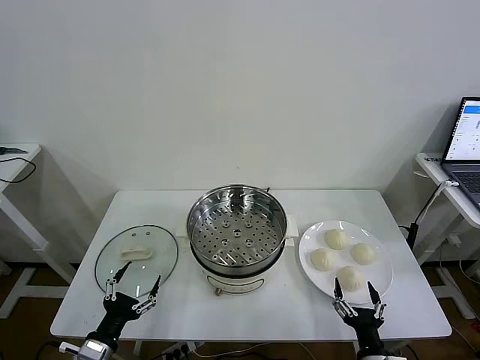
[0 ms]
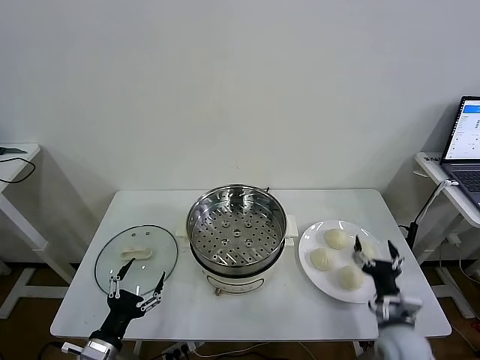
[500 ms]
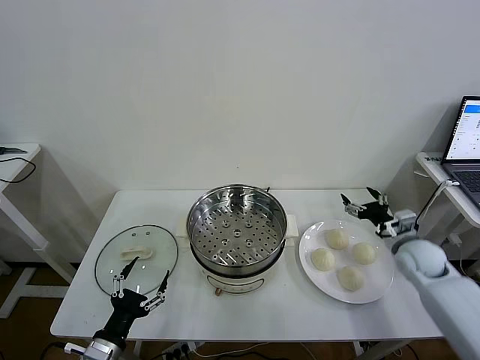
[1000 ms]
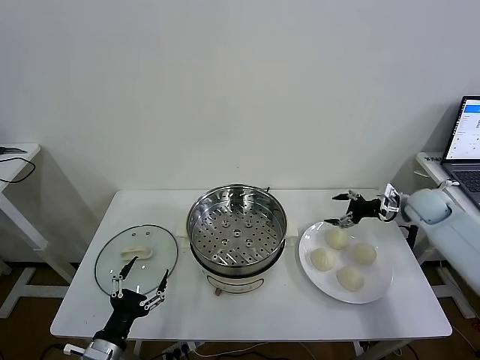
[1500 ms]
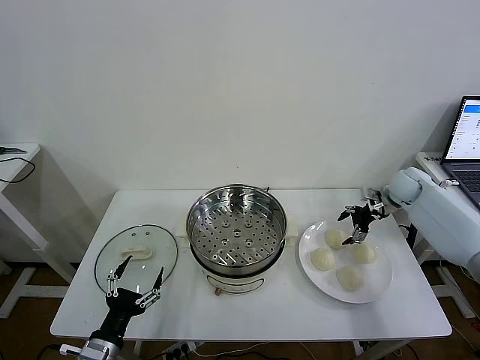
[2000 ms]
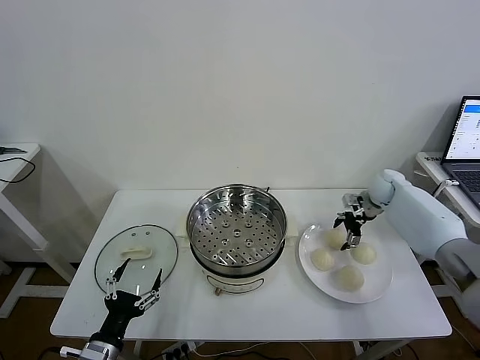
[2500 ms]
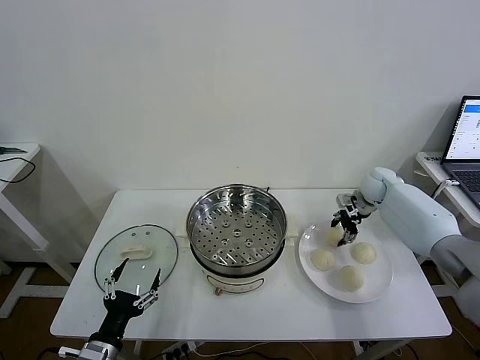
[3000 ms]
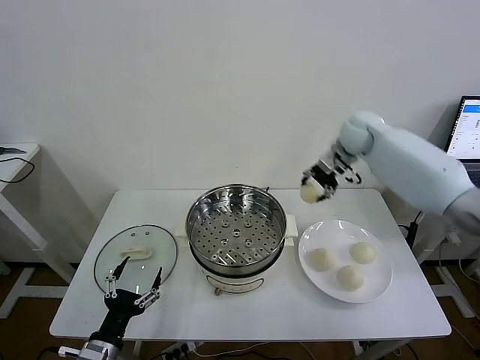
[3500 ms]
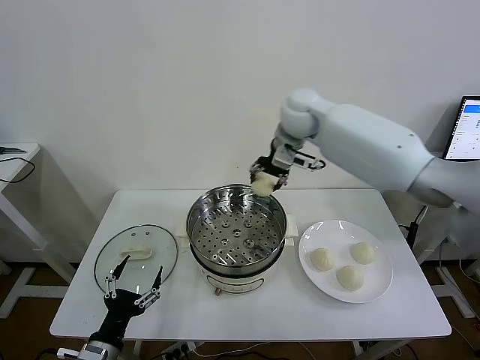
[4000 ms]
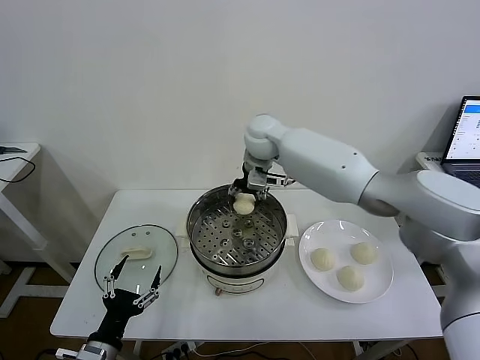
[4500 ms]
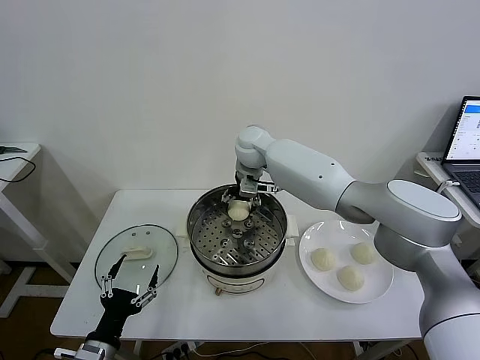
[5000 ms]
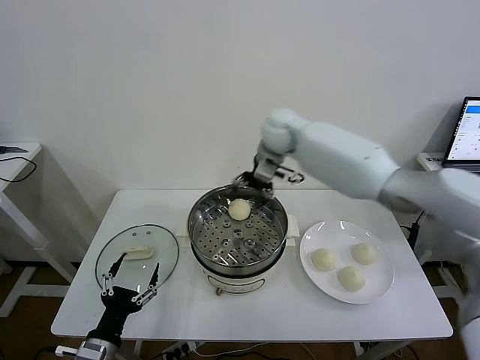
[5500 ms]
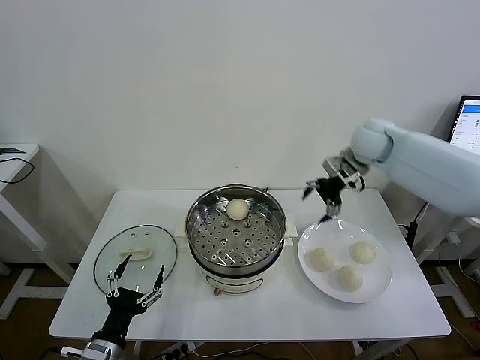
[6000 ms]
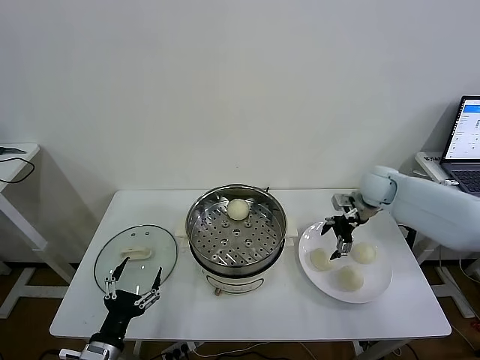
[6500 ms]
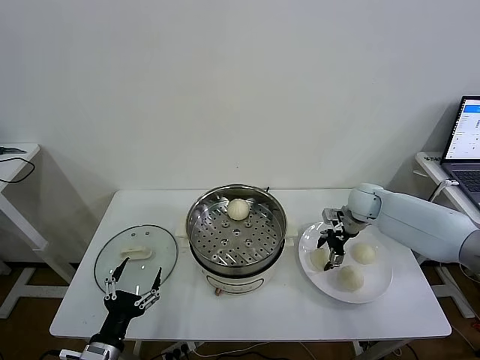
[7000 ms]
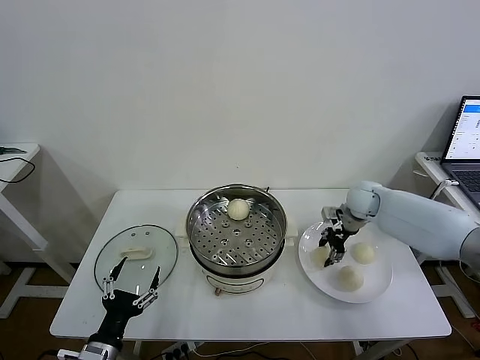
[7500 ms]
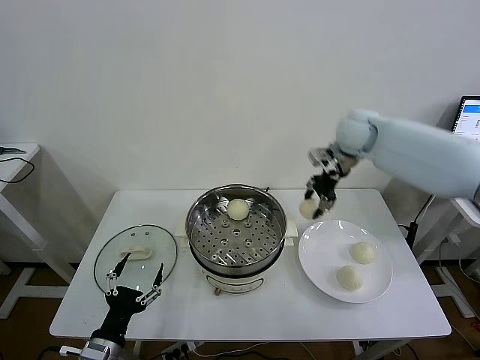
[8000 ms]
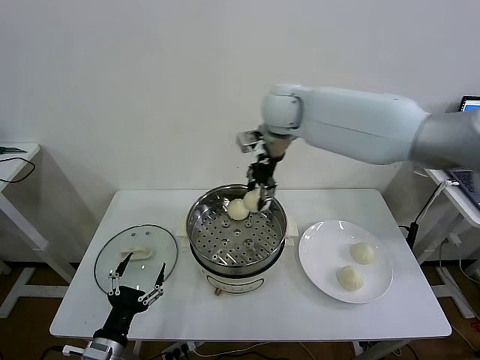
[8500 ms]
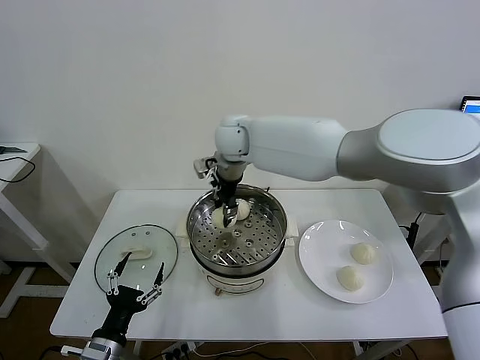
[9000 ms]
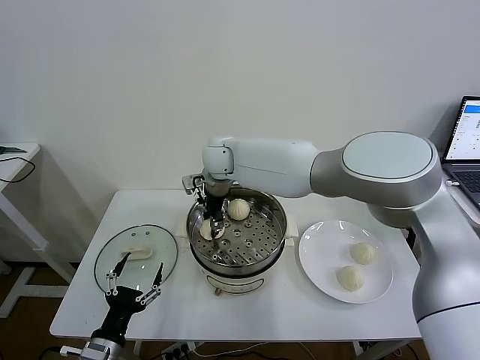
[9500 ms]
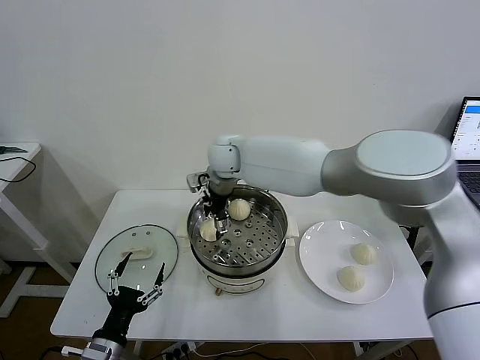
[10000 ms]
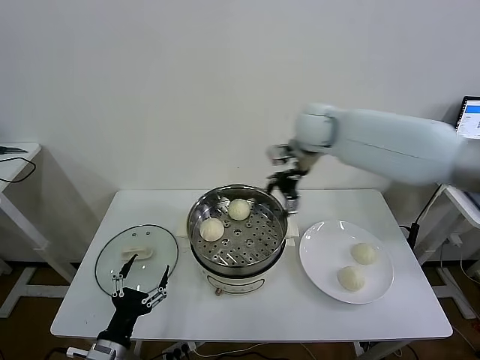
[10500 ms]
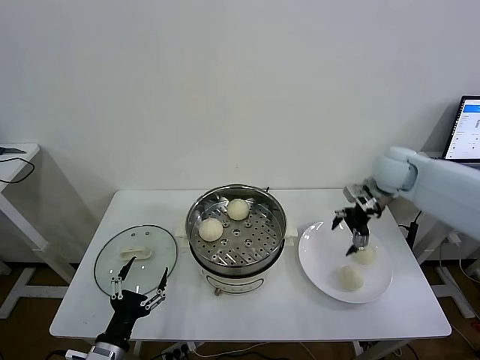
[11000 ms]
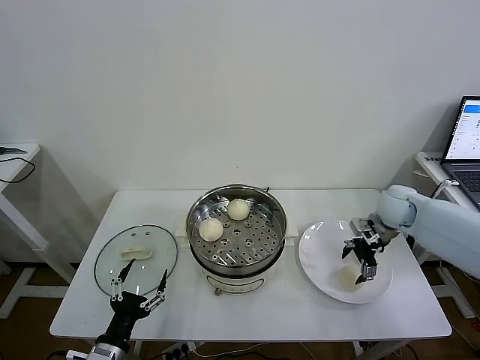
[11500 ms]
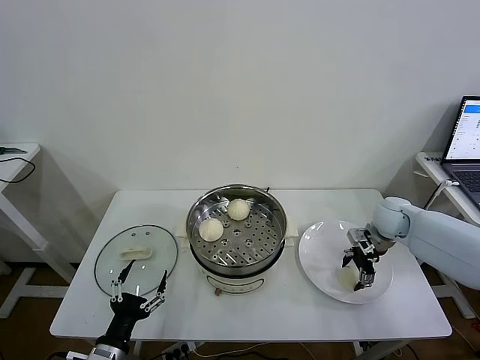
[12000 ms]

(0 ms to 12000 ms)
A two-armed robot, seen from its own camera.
Task of the whole recording: take steamed baozi put them in steamer then cover it.
Step, 0 ms - 2500 ms: Grasp the baozi in the plate with right gripper.
Step, 3000 ms - 5000 ms: Place the baozi on the steamer with right gripper.
Step, 5500 ms - 7000 ms: Grasp the baozi in the plate with right gripper.
Step, 7500 ms - 9500 ms: Place the baozi on the steamer with right gripper.
2000 ms - 4000 ms: The right gripper goes approximately 40 cm to the left and upward, and closes its fingers.
4000 ms - 6000 ms: The right gripper moves to the right, roughly 20 cm, and opens up.
6000 ms - 8000 ms: The right gripper is displaced to the left by approximately 10 cm, travels downward and back again, some 15 cm each way, and closes up.
8000 ms - 10000 ms: The right gripper is displaced to the left by some 25 cm, and opens.
10000 ms - 12000 ms: The right gripper is displaced to the right by approximately 40 cm.

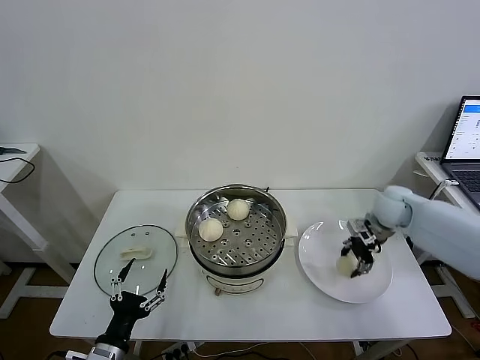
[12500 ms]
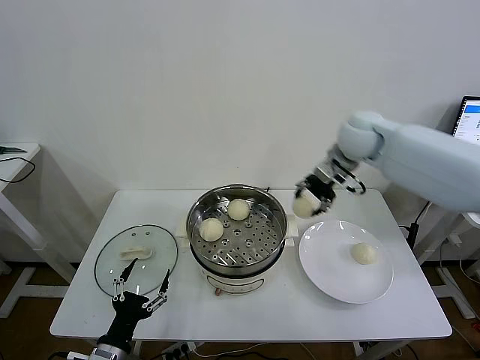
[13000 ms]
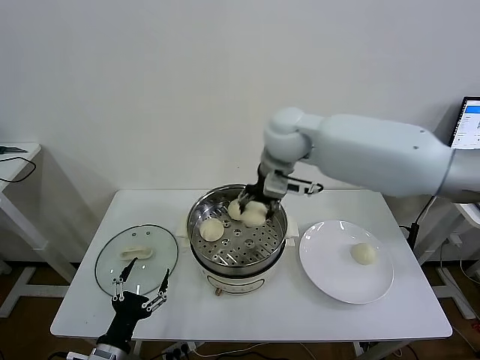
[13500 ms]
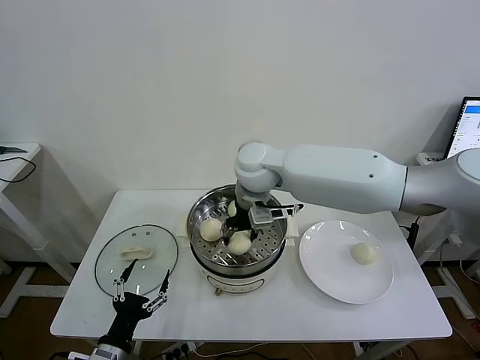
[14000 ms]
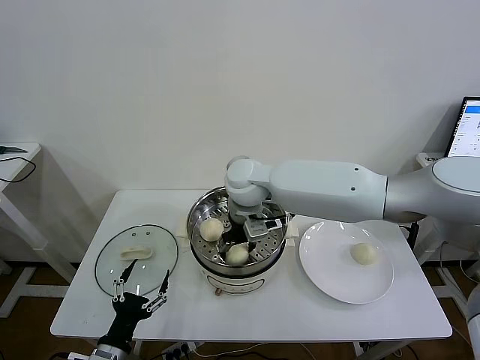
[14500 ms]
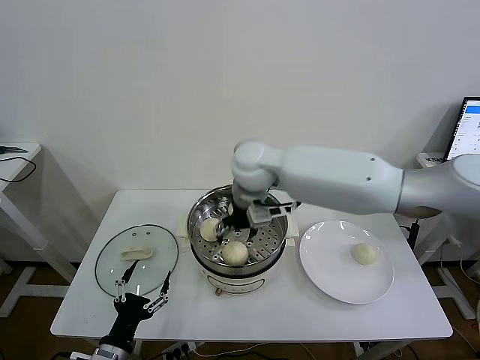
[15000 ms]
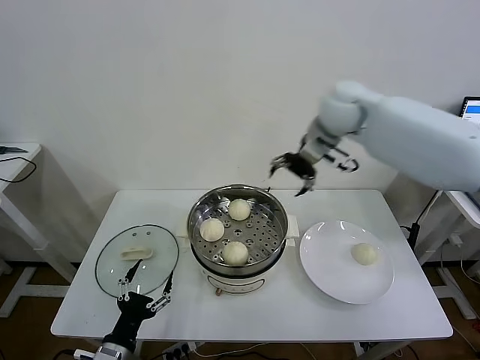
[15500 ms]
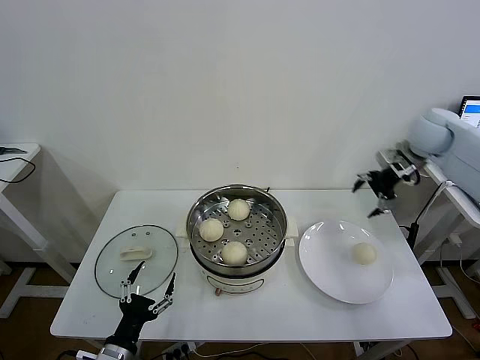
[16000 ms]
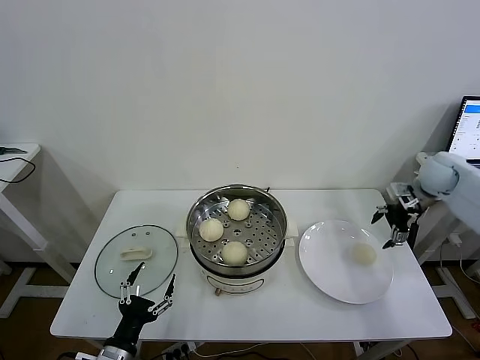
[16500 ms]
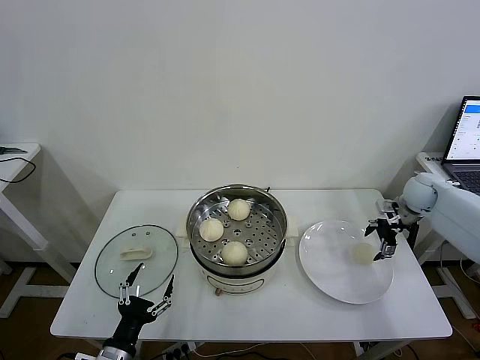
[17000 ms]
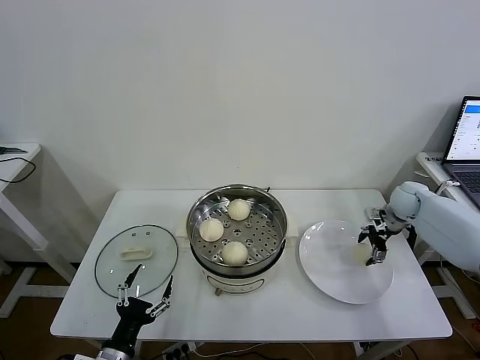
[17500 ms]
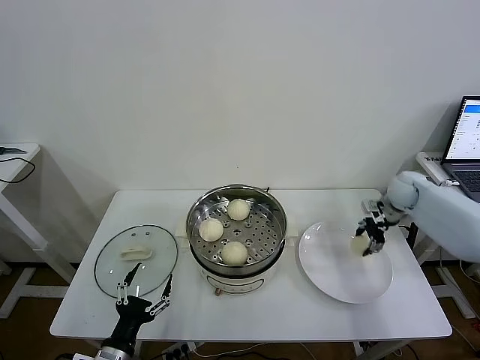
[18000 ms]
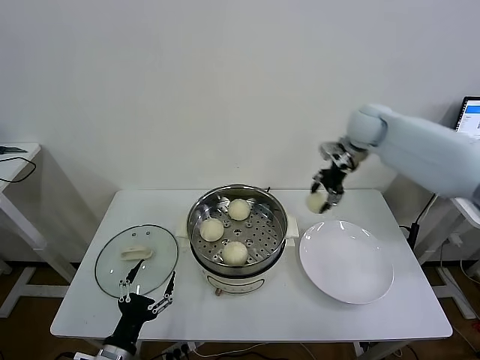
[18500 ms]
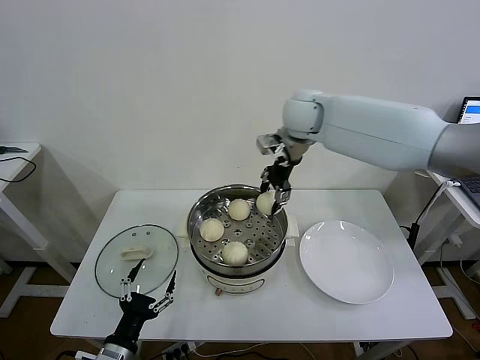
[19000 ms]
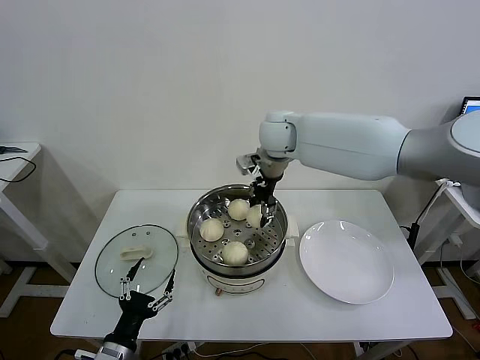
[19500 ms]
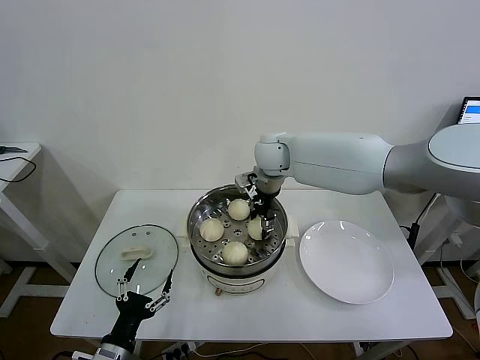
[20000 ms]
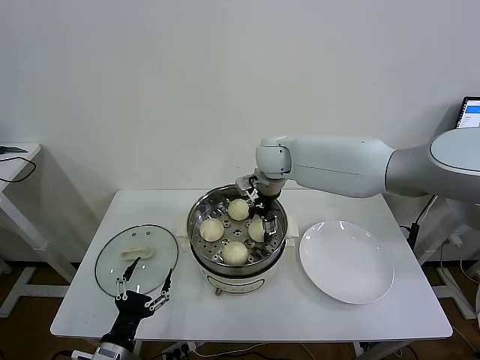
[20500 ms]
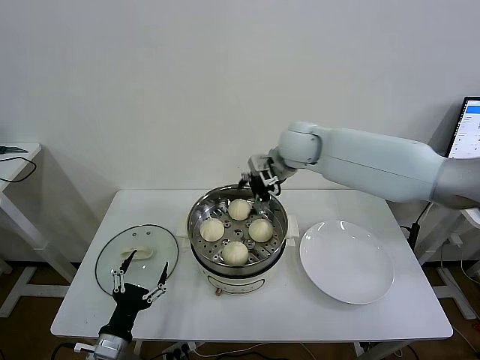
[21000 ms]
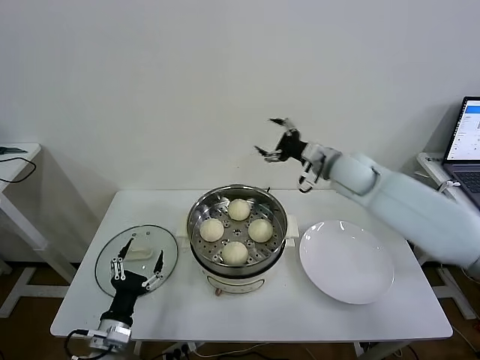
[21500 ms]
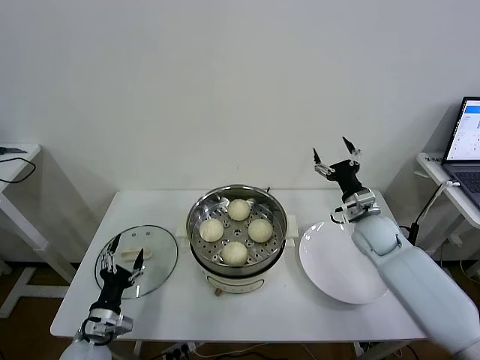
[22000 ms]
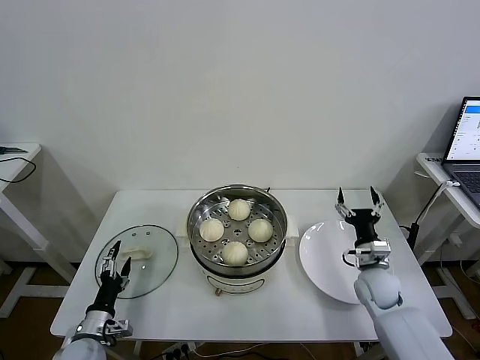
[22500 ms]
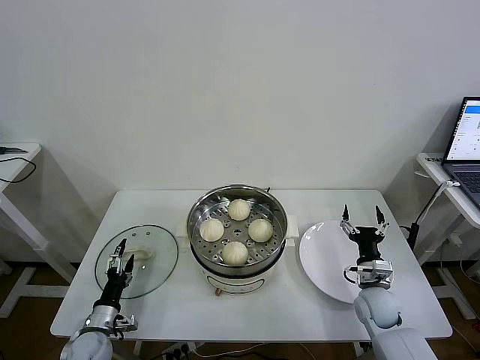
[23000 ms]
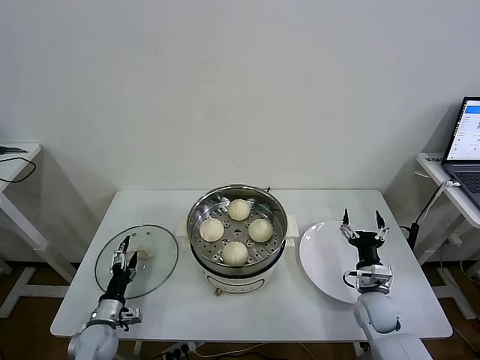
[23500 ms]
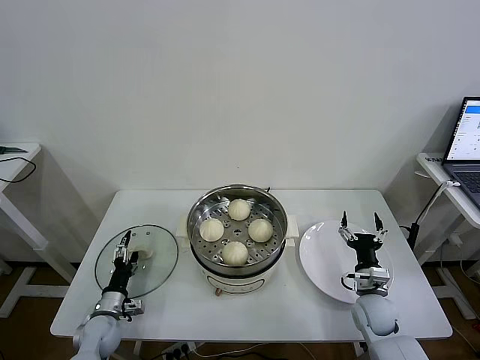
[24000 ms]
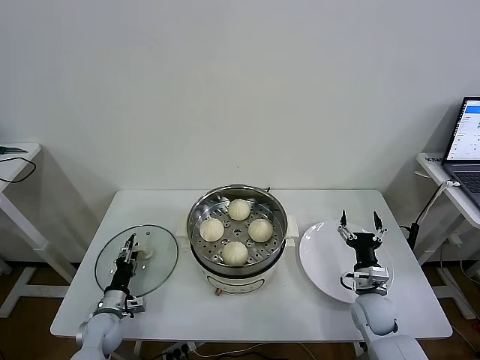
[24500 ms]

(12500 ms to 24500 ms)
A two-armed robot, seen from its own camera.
Task of the whole recording: take steamed baozi put them in steamer then cover it.
Step, 12500 ms - 14500 ms: Place the baozi on the steamer with right gripper.
Step, 15000 ms - 17500 ms: Grasp the baozi in the plate with right gripper.
Step, 18000 ms - 20500 ms: Place the baozi on the steamer with right gripper.
12500 ms - 14500 ms: The right gripper heads to the left, covering about 35 cm, and opens up.
14500 ms - 16500 ms: The right gripper shifts about 50 cm to the right.
16500 ms - 18500 ms: The right gripper shifts about 20 cm to the left and upward, and closes.
18500 ms - 20500 ms: The right gripper goes approximately 20 cm to the left, and opens its fingers.
20500 ms - 22500 ms: The left gripper travels forward, to the left and downward by some 15 cm, while the right gripper is displaced to the right, downward and backward by approximately 40 cm.
22500 ms - 24500 ms: The right gripper moves some 5 cm; the left gripper shifts about 10 cm forward and downward, and closes its fingers.

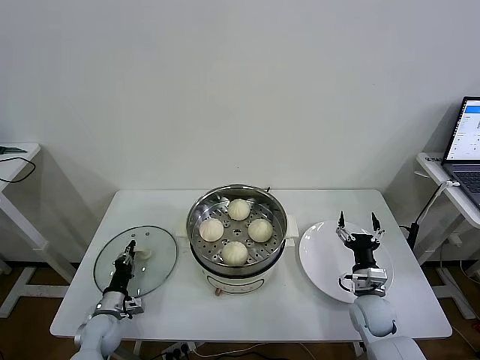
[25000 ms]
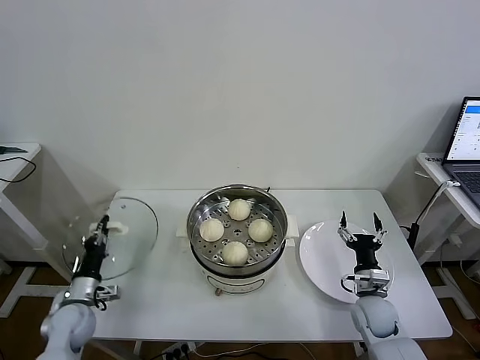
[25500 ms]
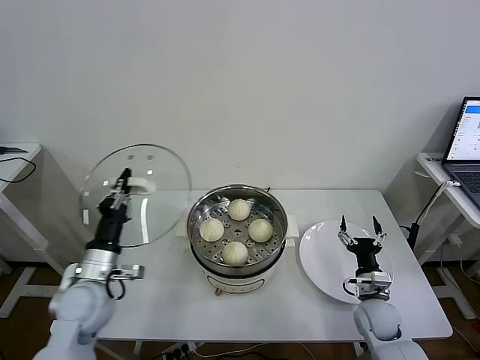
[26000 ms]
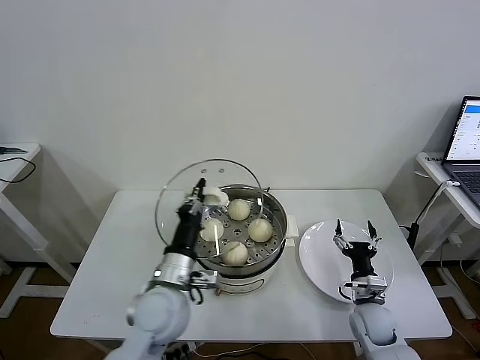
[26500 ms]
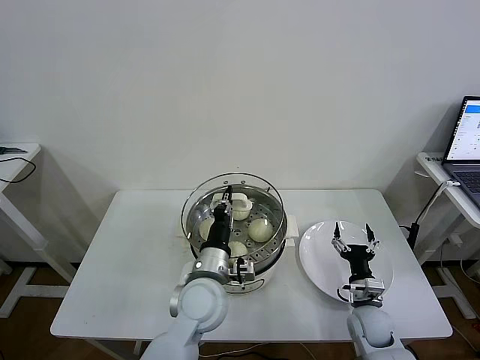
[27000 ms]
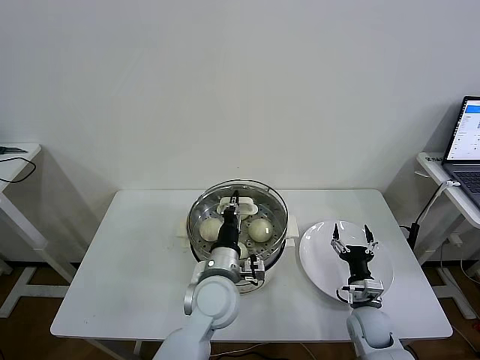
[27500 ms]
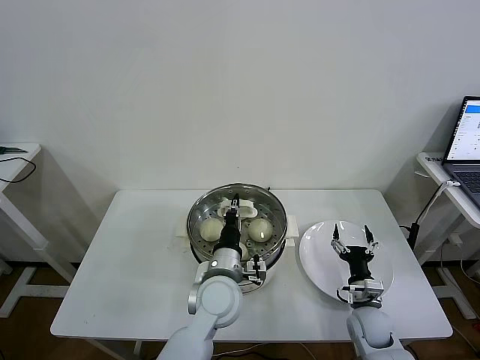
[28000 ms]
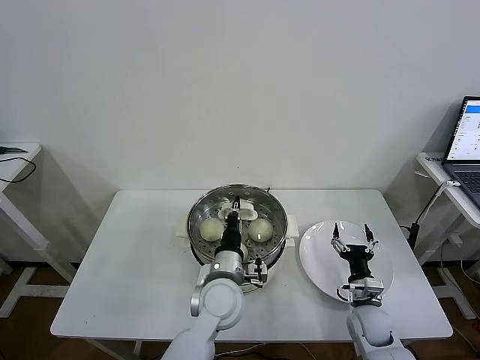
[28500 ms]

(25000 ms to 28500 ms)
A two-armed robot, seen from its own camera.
Task of the whole recording: take steamed baozi put them in steamer then cover it.
25000 ms - 27000 ms: The left gripper is displaced to the right and upward by about 35 cm.
27000 ms - 28500 ms: The left gripper shifts by some 5 cm.
